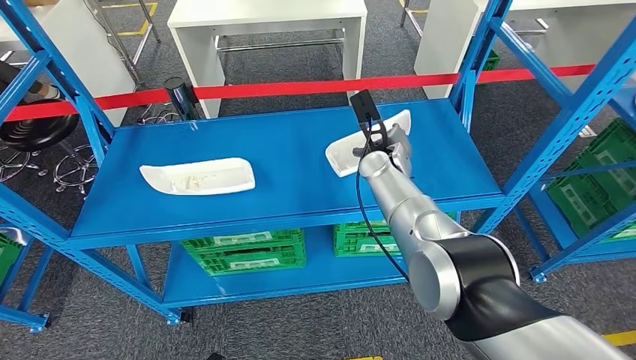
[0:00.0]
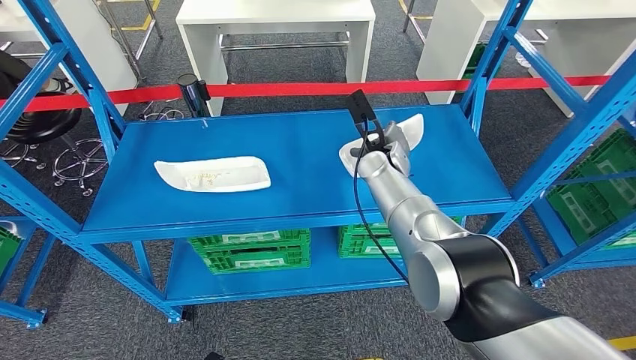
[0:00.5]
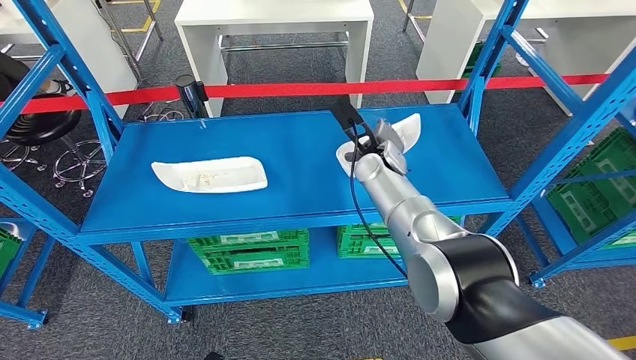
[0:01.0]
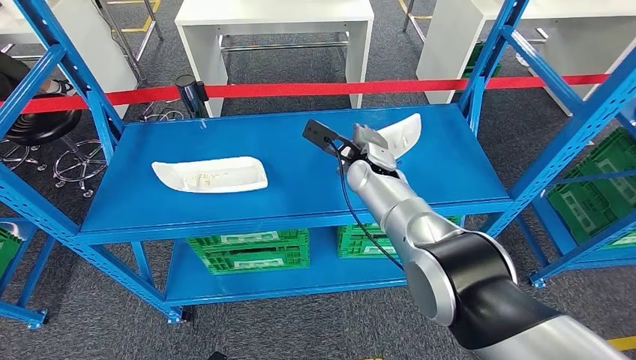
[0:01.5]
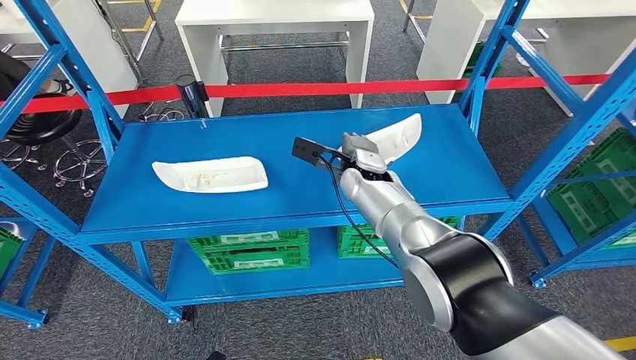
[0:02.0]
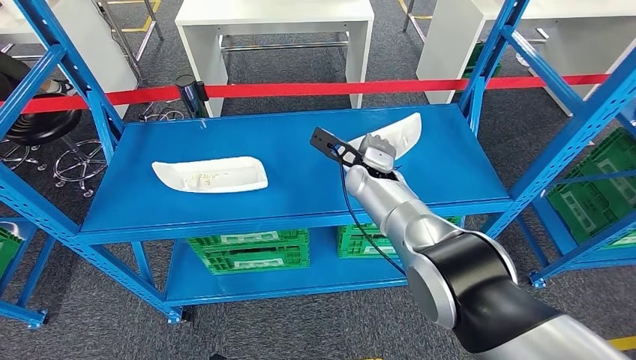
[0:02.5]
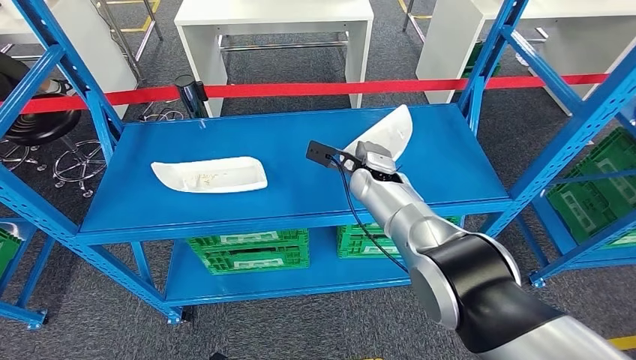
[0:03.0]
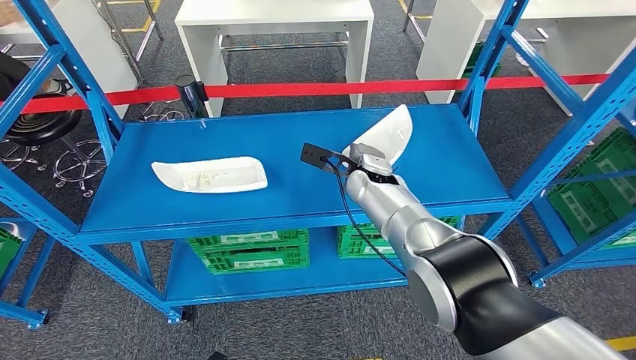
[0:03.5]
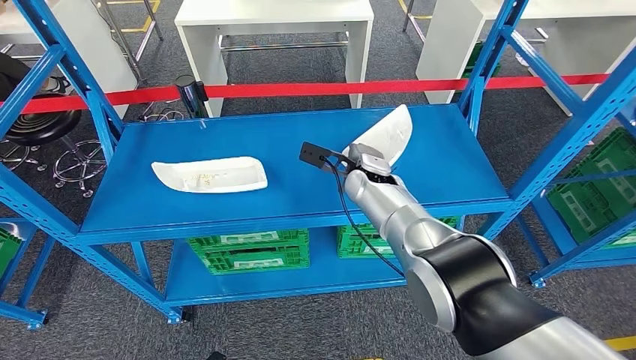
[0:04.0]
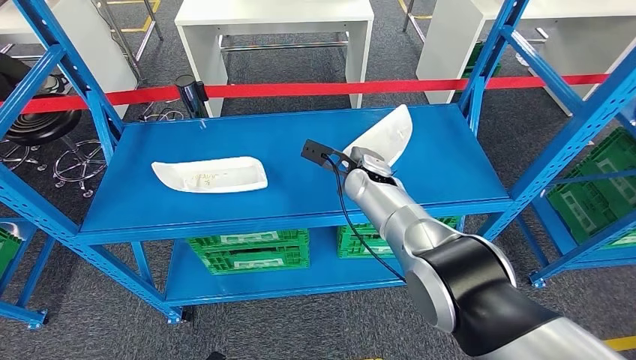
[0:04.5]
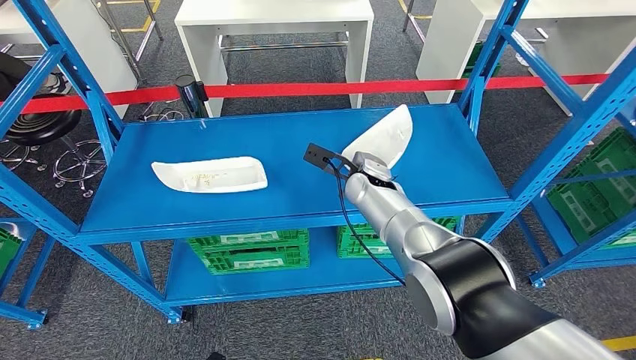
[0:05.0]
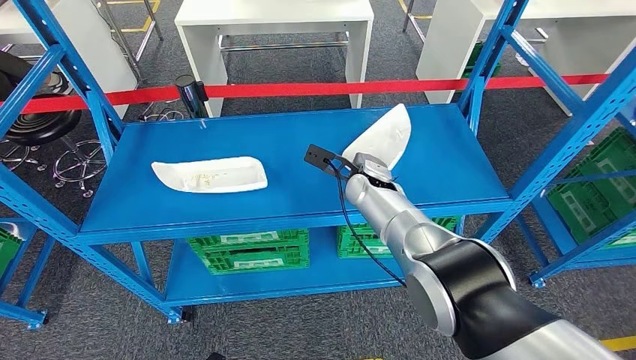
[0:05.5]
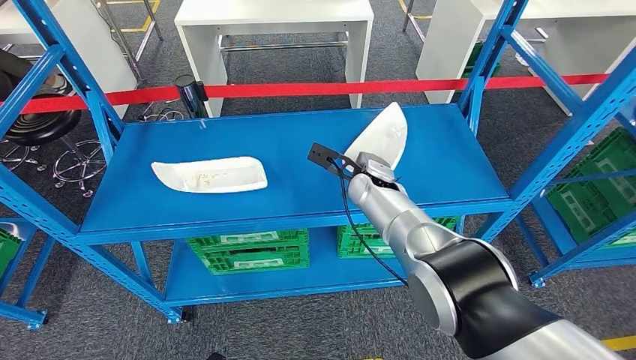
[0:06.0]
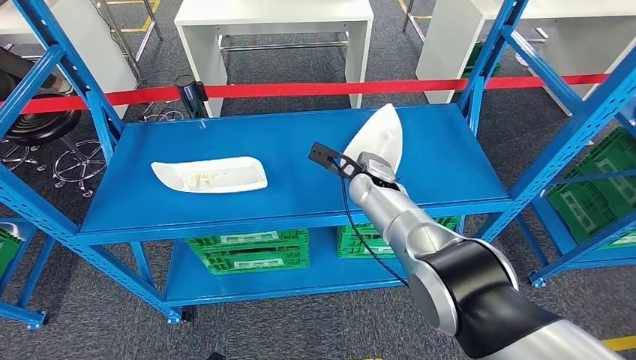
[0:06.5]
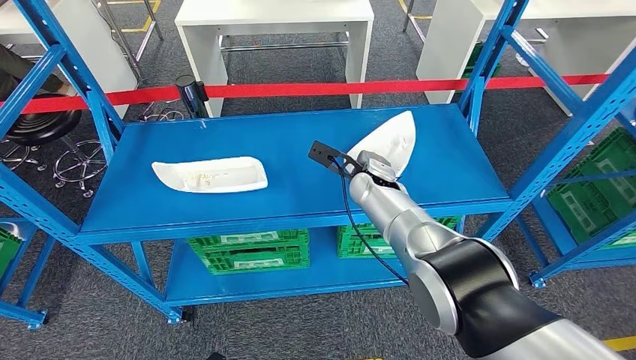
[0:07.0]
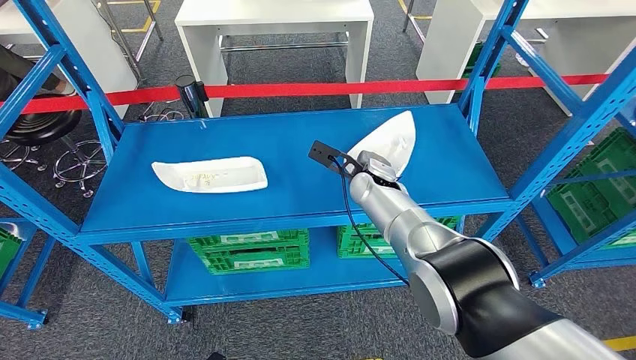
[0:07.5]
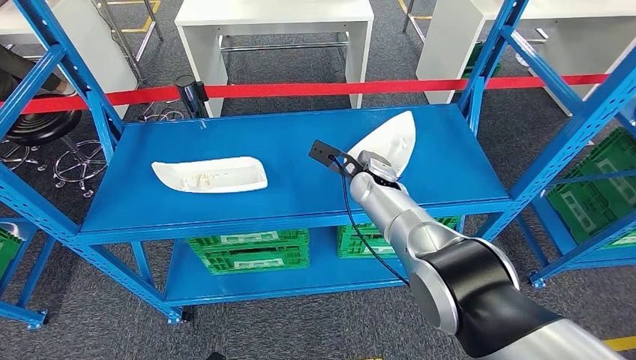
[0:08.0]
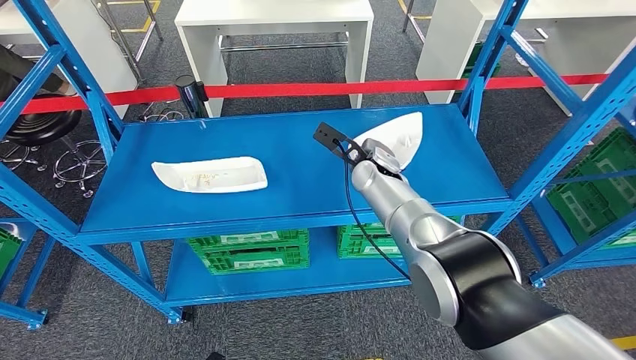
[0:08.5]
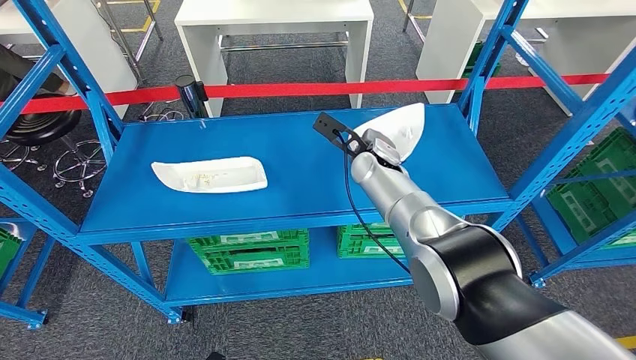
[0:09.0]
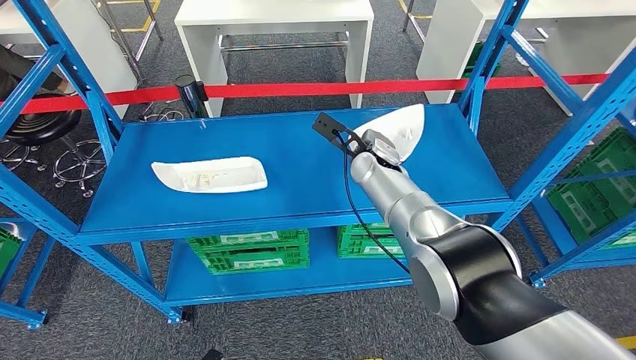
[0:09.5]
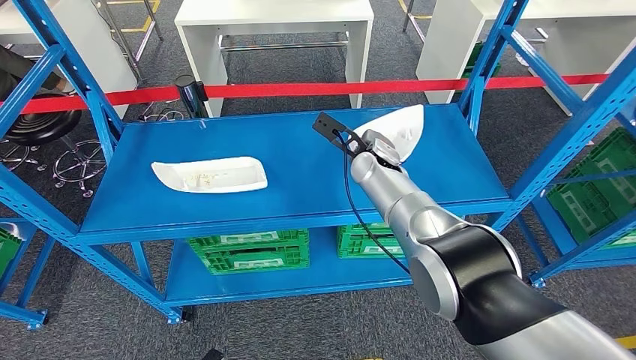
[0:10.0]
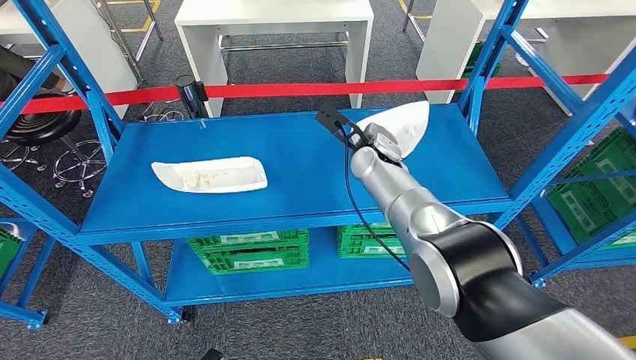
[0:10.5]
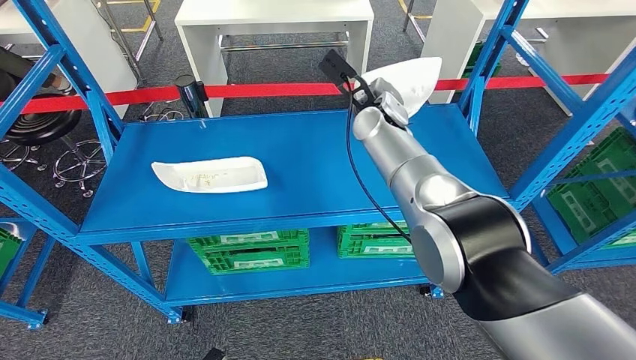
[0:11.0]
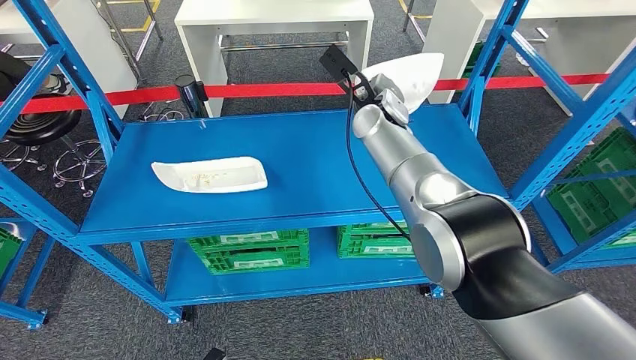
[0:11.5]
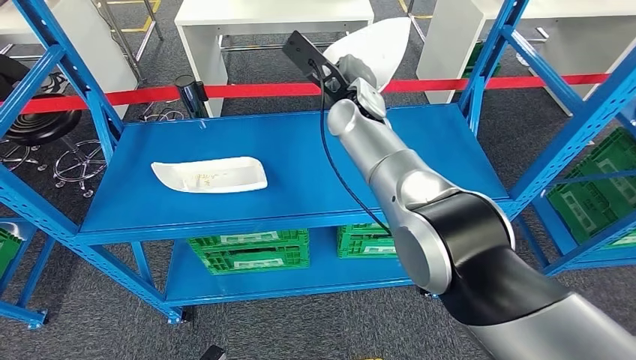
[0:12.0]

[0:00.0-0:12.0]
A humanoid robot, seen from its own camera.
0:02.0 to 0:06.0: The hands stay close to where they were, moving slightly.
0:06.0 to 0:08.0: Both hands stay about where they are.
0:08.0 to 0:10.0: The hands make only small movements.
0:10.0 to 0:12.0: The right hand is displaced upward by about 10 cm.

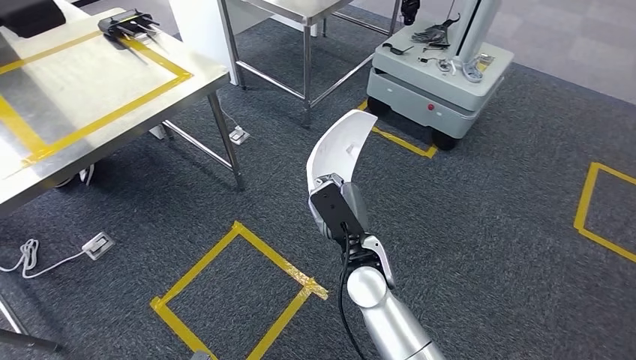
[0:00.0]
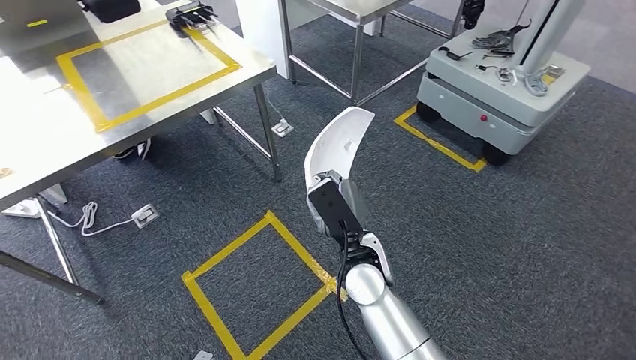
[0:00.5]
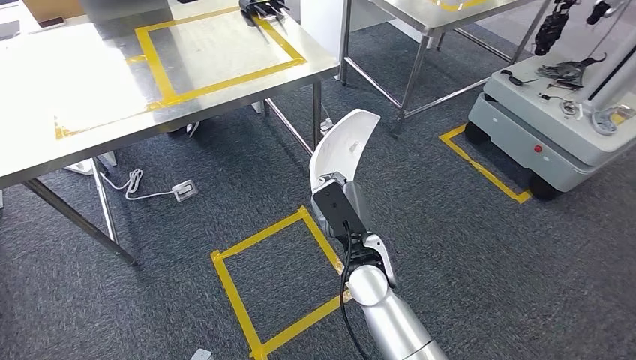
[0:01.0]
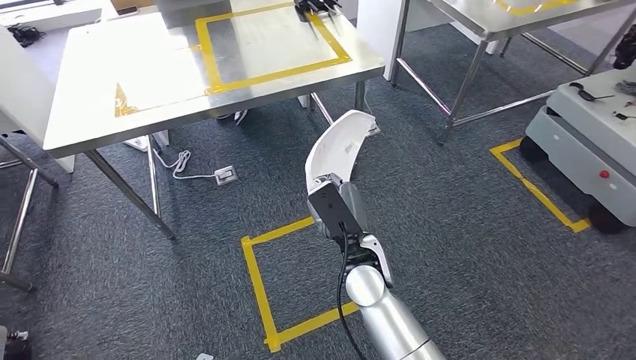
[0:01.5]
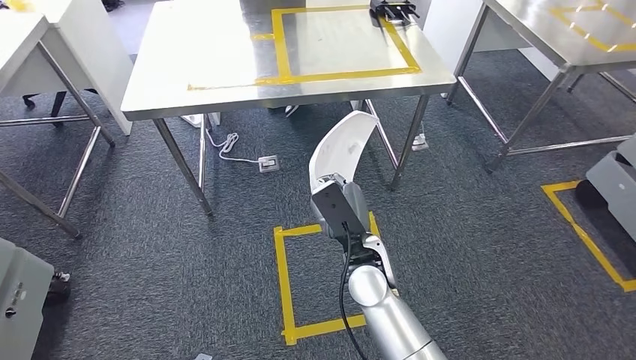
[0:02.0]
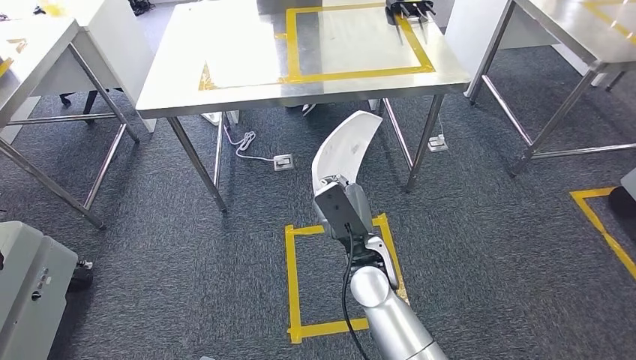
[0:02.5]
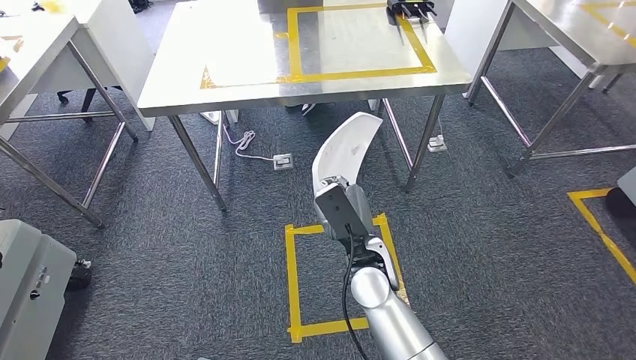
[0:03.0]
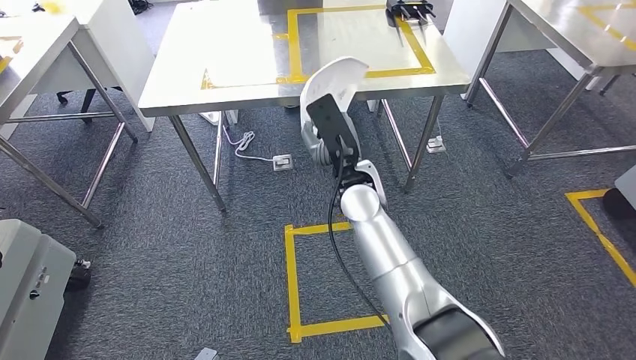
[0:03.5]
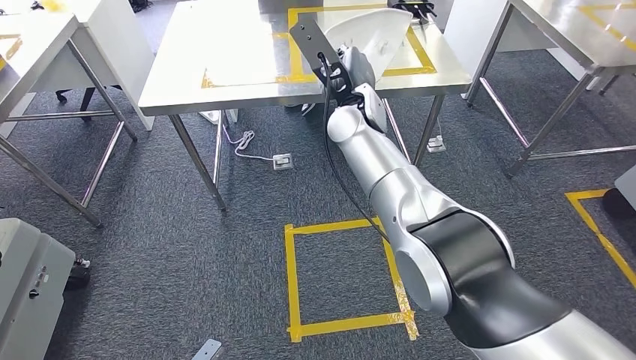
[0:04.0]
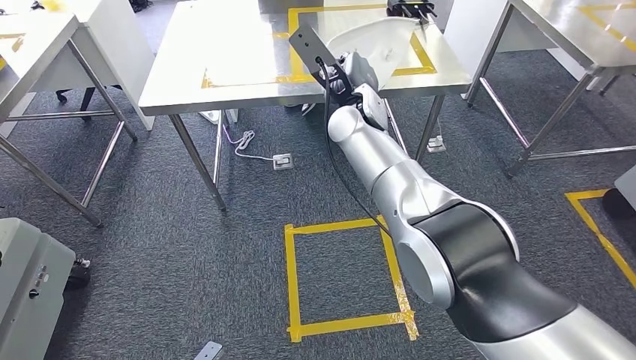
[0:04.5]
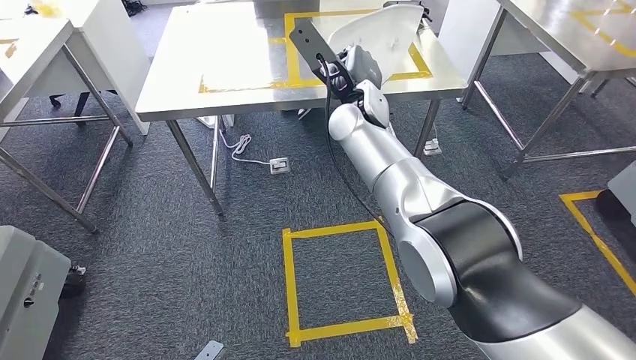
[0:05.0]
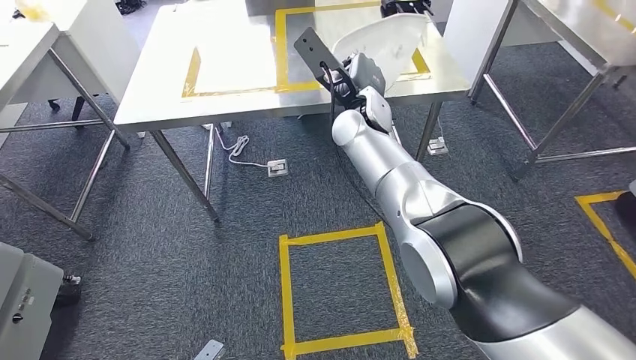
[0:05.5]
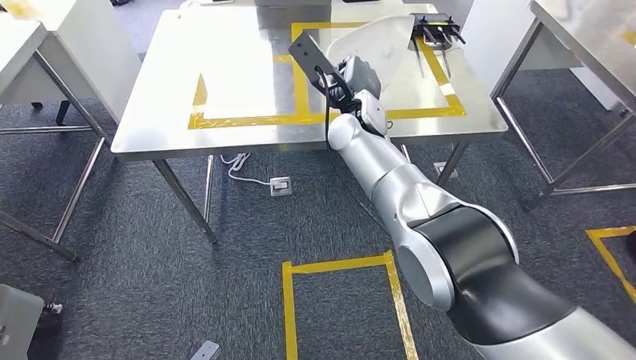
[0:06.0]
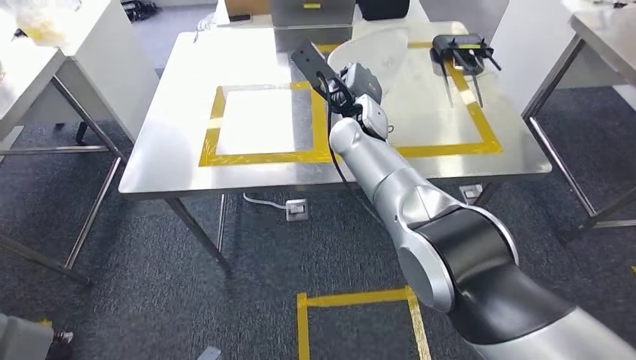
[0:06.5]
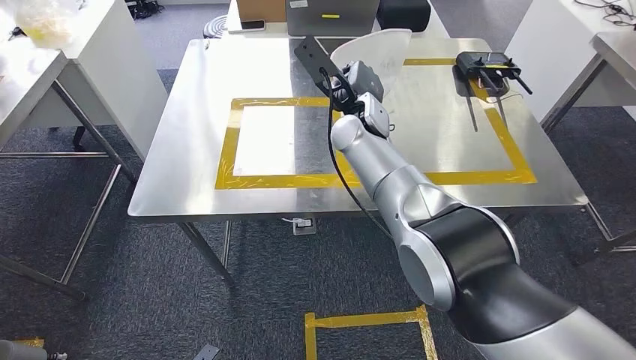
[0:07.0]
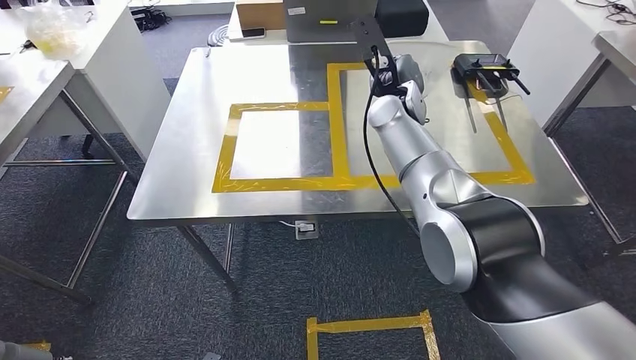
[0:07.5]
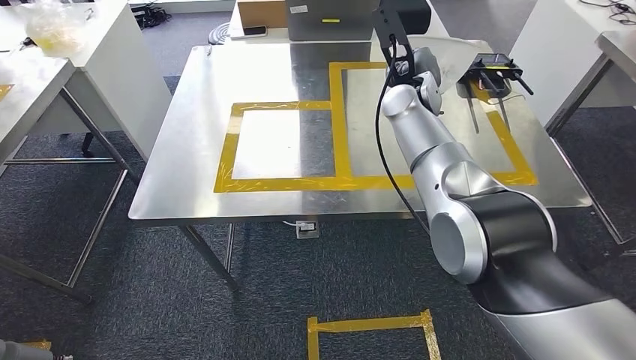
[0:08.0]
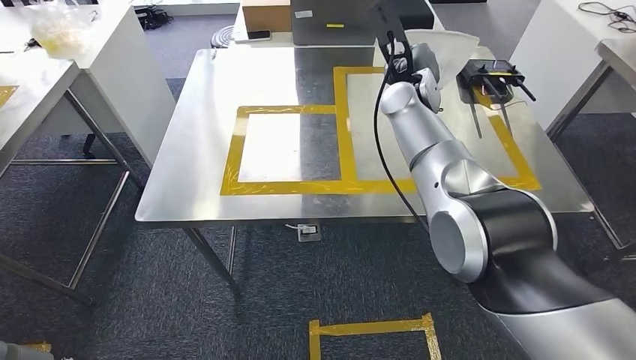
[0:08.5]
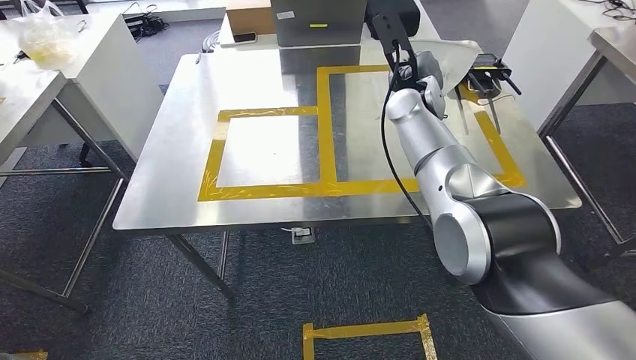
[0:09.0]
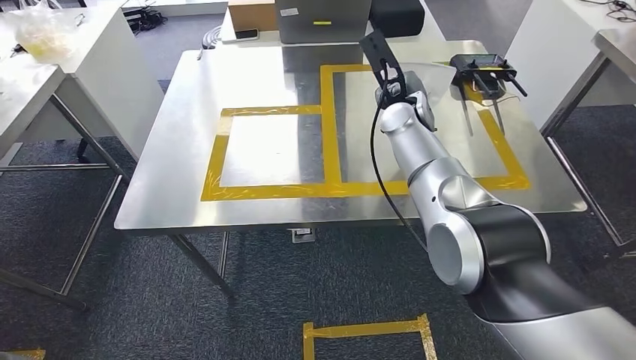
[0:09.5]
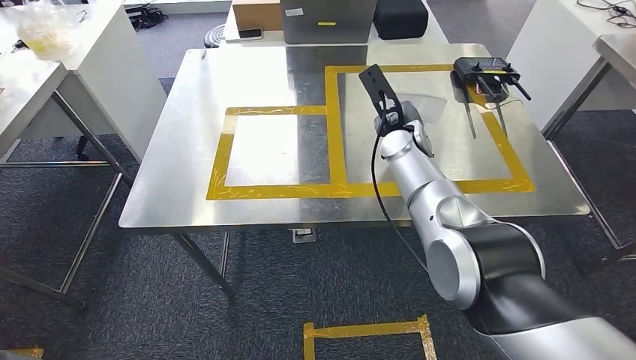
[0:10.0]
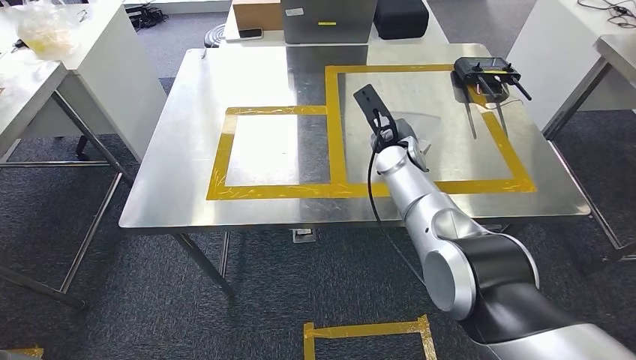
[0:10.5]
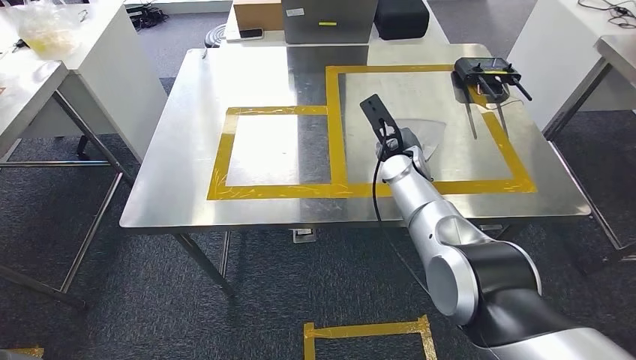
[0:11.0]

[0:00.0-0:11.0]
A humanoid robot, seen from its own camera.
Step, 0:00.0 to 0:07.5: Bring the small component to the front of the workbench.
